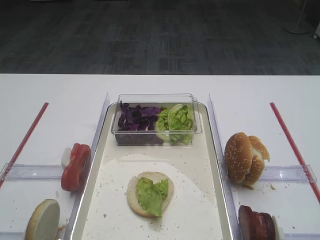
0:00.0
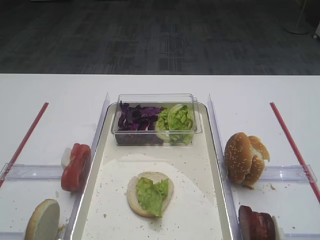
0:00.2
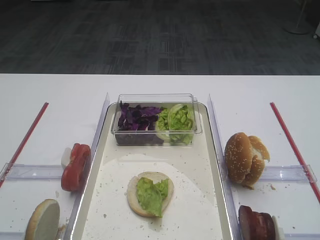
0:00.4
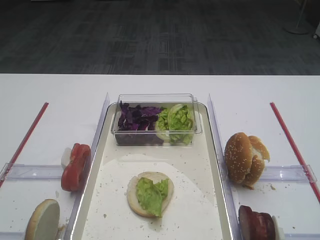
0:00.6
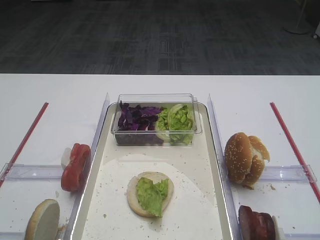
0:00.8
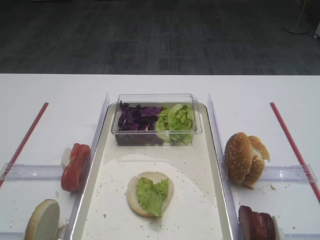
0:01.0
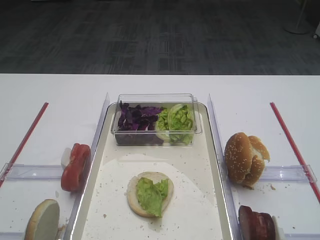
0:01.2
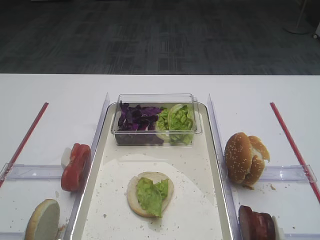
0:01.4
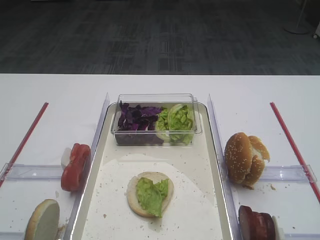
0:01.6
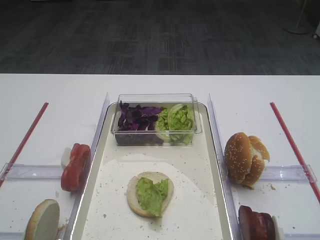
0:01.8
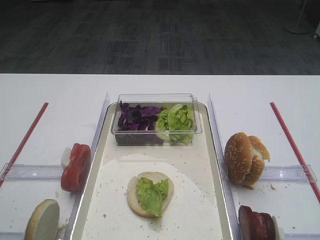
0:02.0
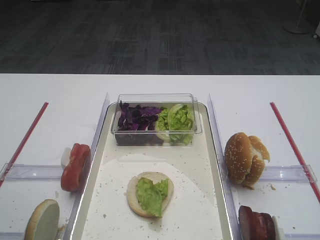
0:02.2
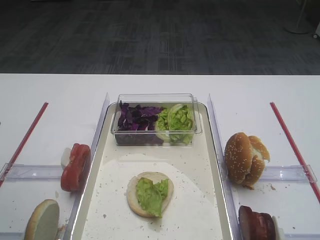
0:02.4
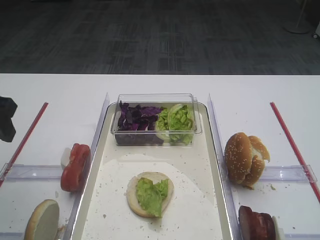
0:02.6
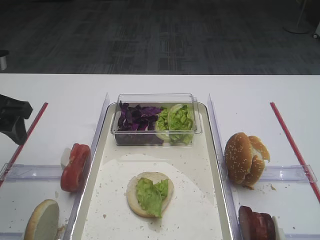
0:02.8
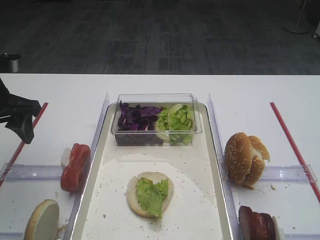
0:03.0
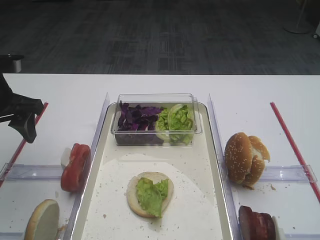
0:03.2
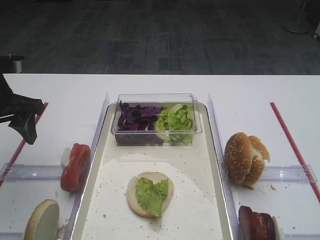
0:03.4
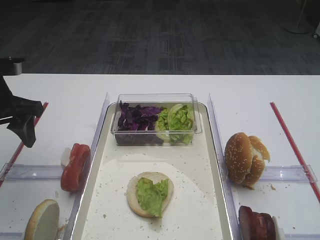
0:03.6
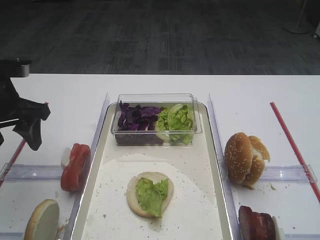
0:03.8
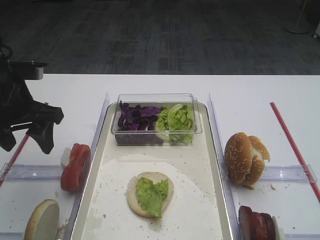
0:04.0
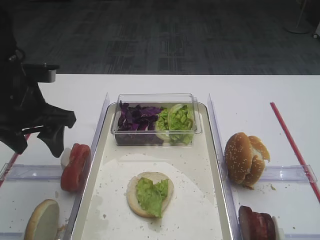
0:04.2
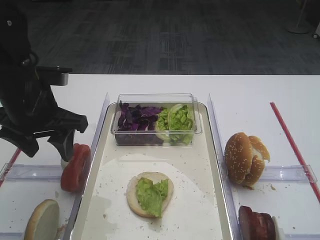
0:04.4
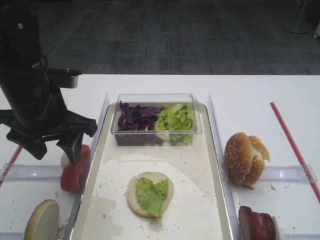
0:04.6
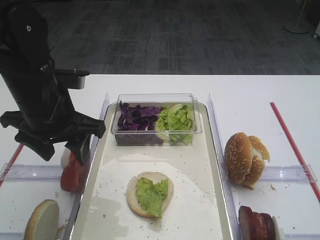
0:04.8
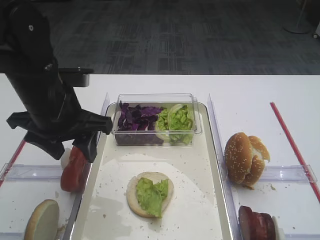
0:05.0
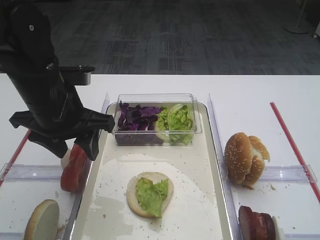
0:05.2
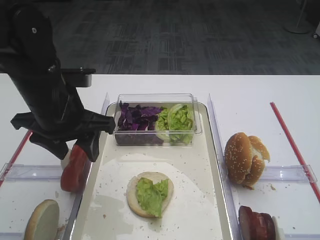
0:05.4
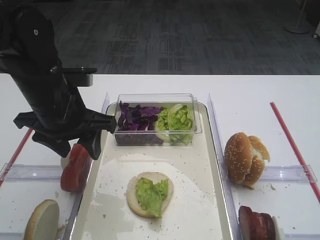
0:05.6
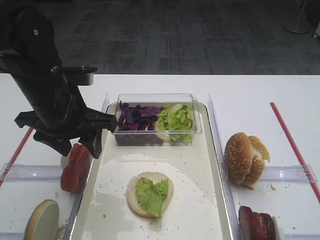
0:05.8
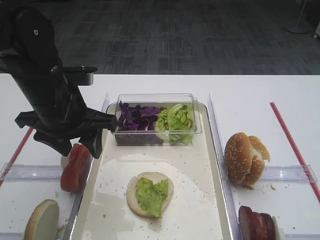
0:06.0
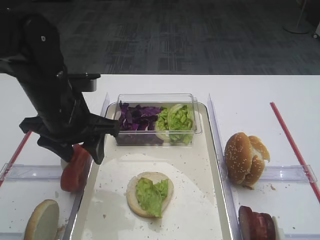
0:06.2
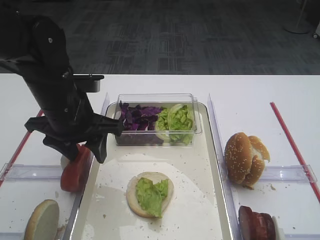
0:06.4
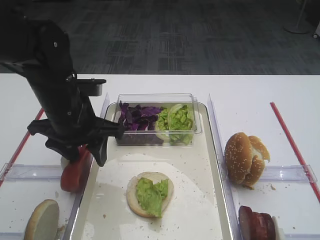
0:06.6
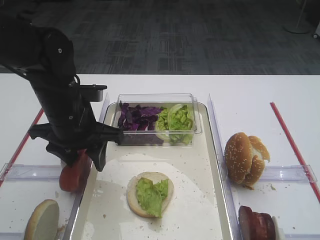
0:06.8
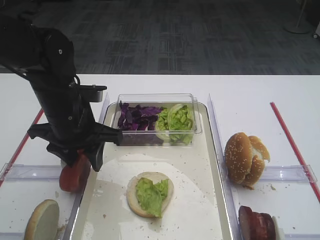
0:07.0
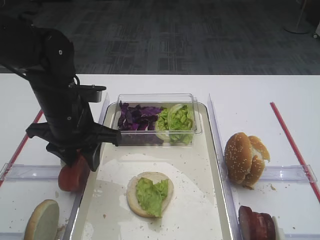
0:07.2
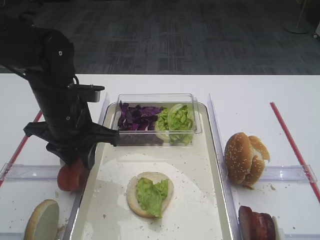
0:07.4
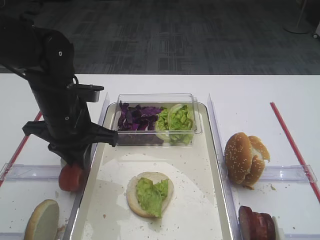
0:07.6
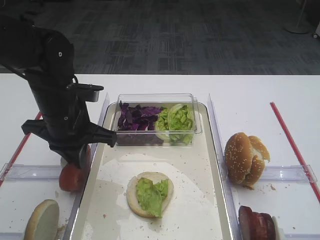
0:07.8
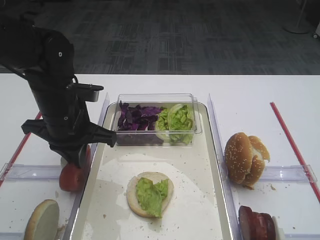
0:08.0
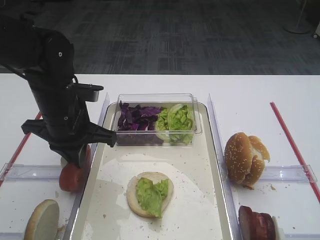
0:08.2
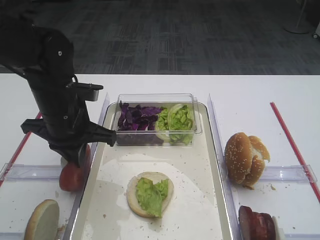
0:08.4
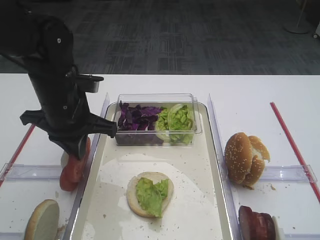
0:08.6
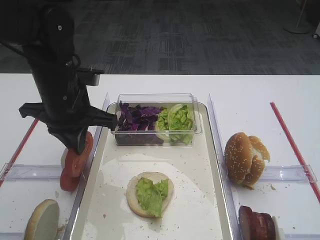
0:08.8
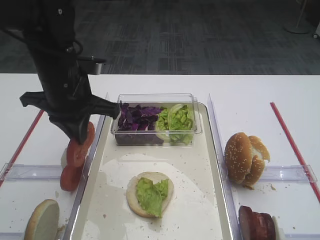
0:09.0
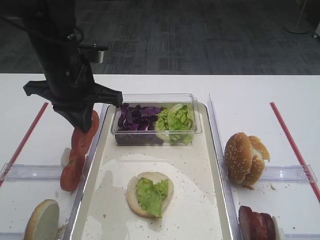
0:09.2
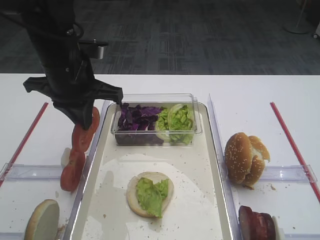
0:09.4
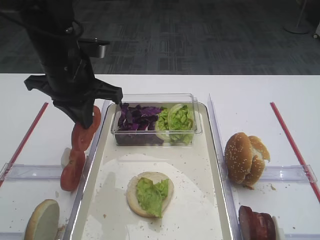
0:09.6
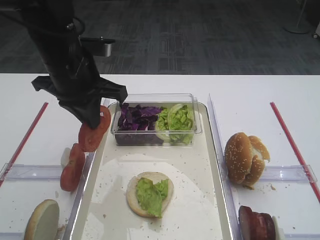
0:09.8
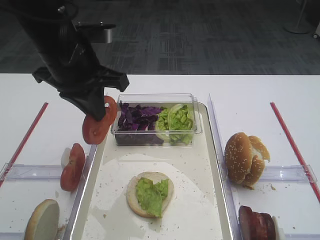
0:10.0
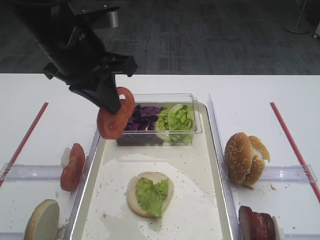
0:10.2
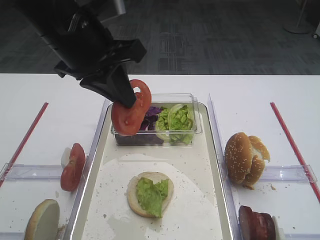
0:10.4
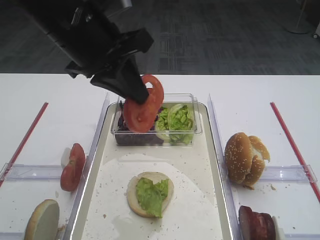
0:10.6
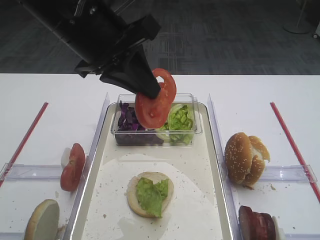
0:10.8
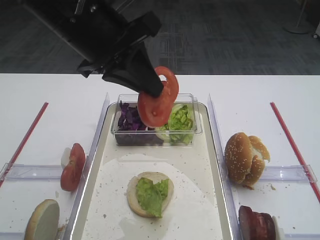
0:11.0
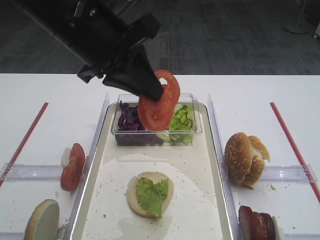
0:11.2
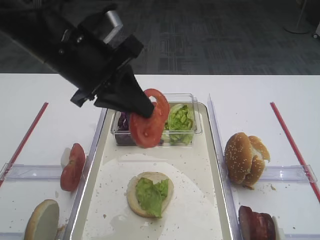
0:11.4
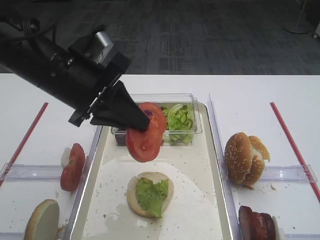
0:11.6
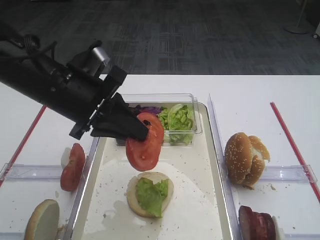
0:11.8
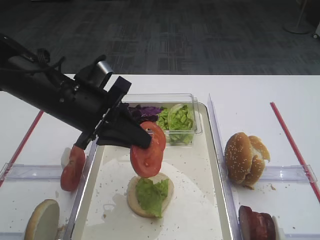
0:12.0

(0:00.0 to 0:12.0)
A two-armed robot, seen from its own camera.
Step, 0:00.0 - 0:08.6: Pick up the tomato slice with the left gripper.
0:01.6 - 0:03.0: The left gripper shifts approximately 30 cm forward.
0:03.0 - 0:04.4: The left gripper heads to the right, covering roughly 10 cm.
0:04.4 - 0:06.0: There are only small adjustments of the grippers.
0:06.0 - 0:07.6: The left gripper closes up.
0:07.6 - 0:09.0: The left gripper changes place by roughly 5 cm.
0:09.0 - 0:10.4: The left gripper heads upward, covering approximately 10 cm.
0:10.4 - 0:12.0: The left gripper goes approximately 10 cm downward.

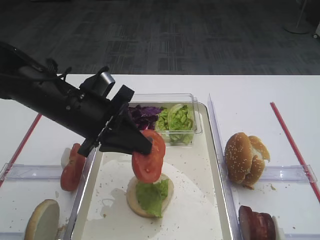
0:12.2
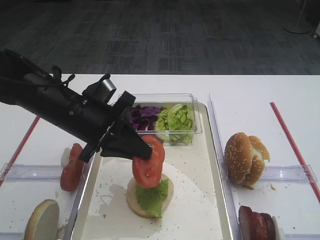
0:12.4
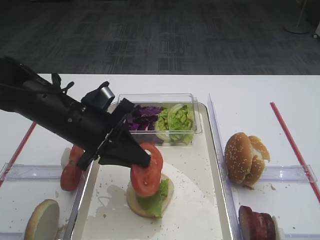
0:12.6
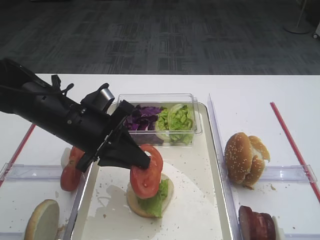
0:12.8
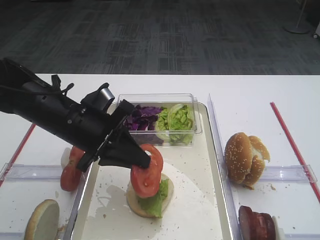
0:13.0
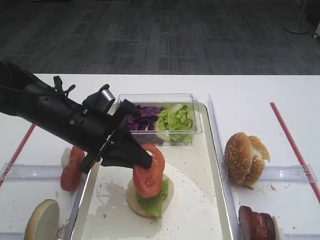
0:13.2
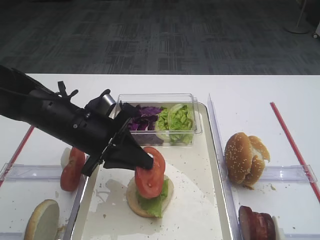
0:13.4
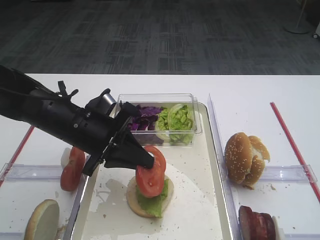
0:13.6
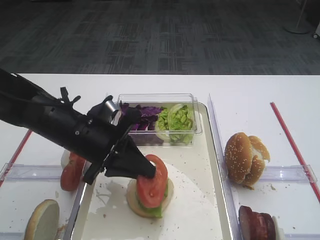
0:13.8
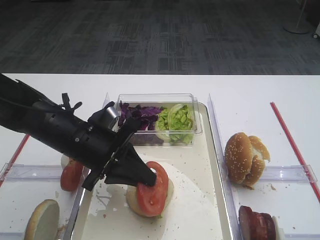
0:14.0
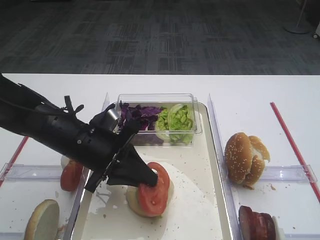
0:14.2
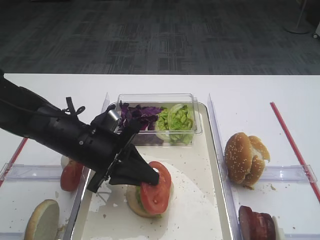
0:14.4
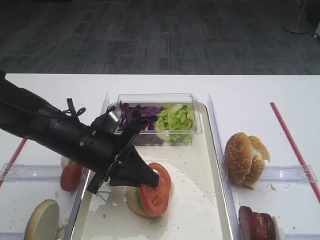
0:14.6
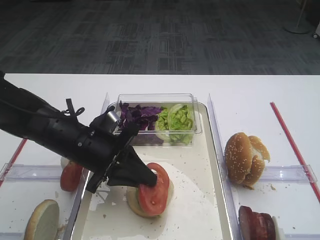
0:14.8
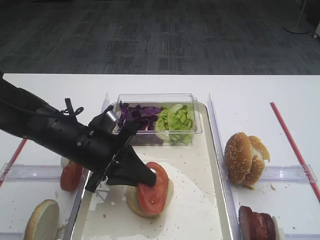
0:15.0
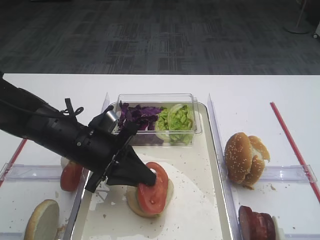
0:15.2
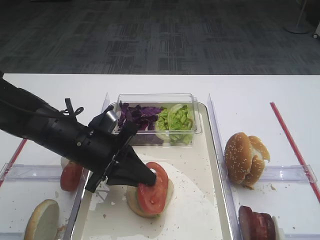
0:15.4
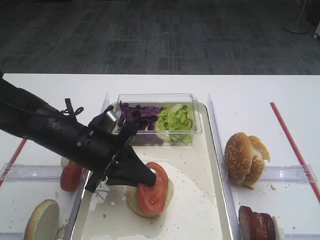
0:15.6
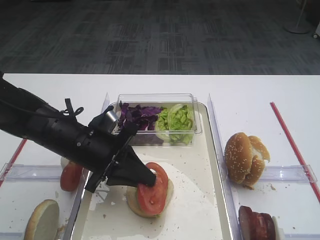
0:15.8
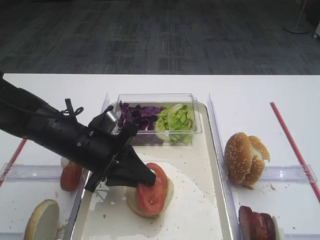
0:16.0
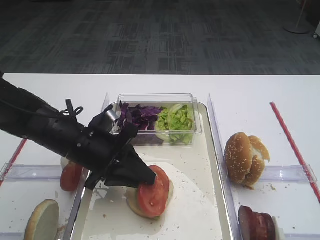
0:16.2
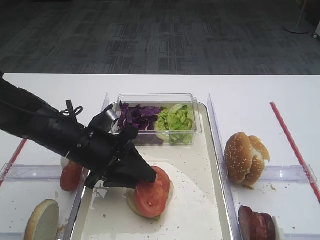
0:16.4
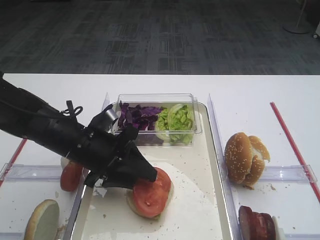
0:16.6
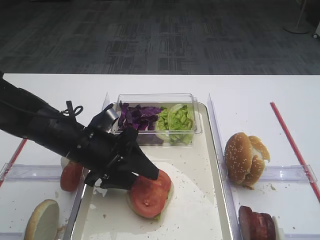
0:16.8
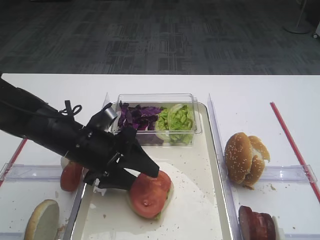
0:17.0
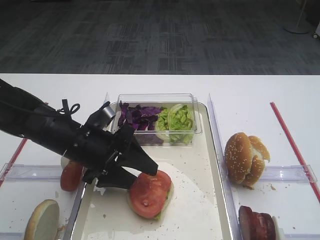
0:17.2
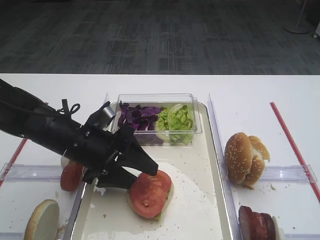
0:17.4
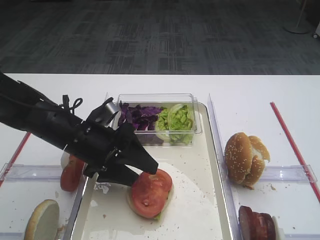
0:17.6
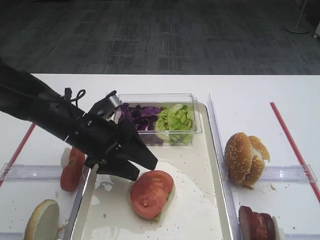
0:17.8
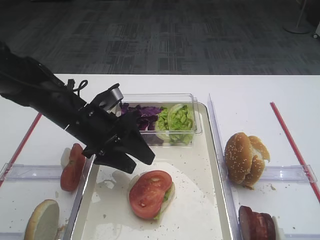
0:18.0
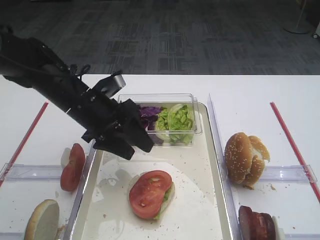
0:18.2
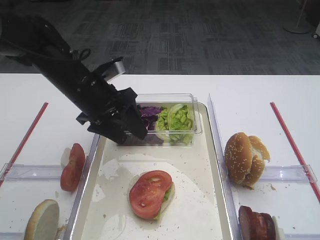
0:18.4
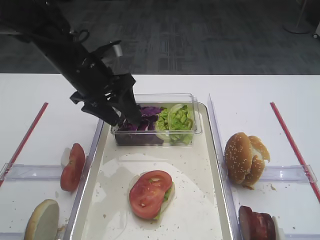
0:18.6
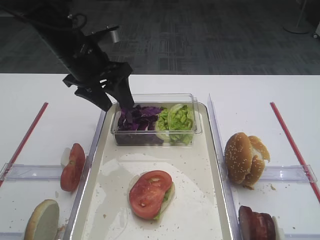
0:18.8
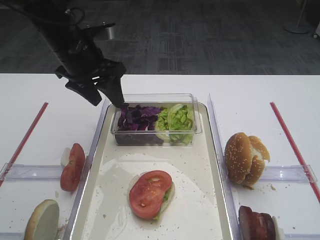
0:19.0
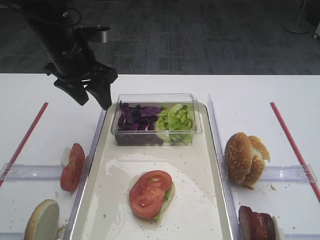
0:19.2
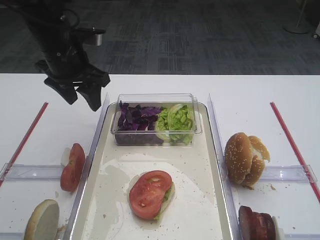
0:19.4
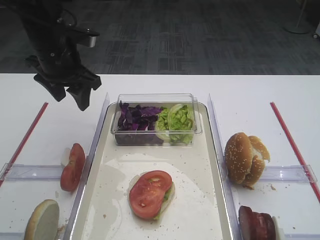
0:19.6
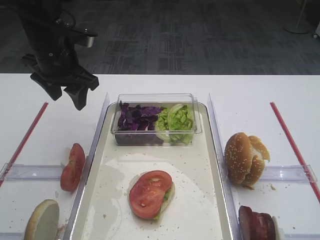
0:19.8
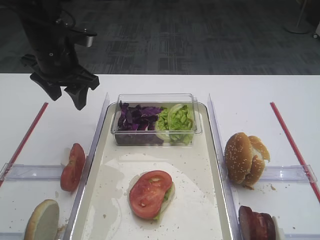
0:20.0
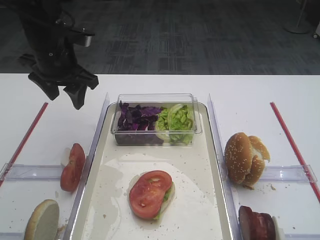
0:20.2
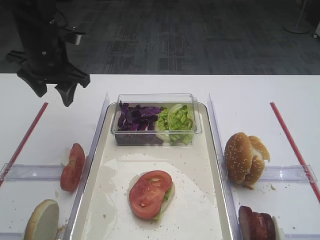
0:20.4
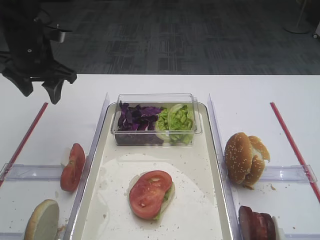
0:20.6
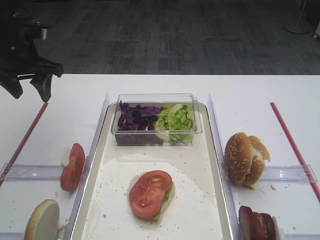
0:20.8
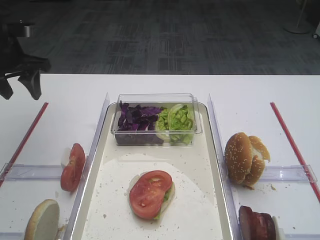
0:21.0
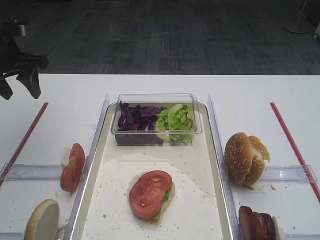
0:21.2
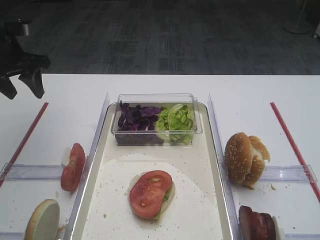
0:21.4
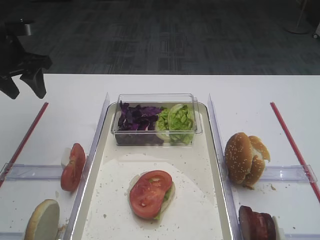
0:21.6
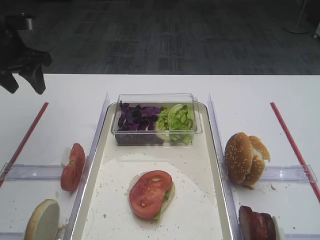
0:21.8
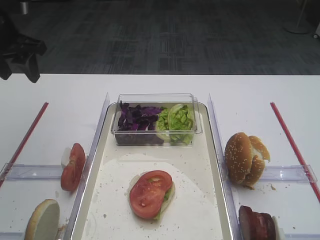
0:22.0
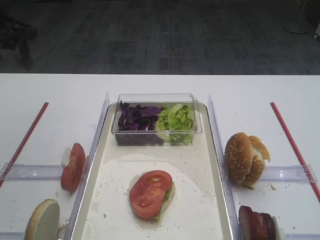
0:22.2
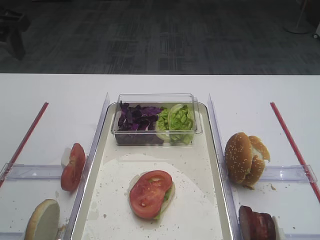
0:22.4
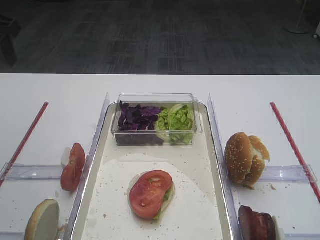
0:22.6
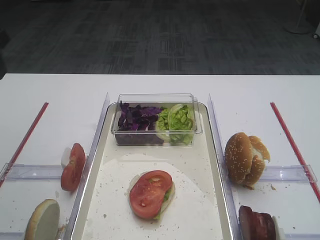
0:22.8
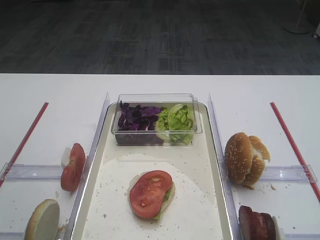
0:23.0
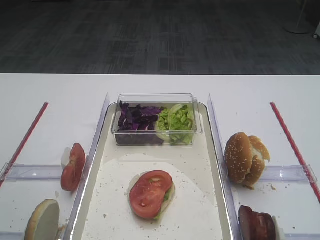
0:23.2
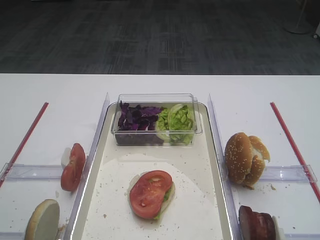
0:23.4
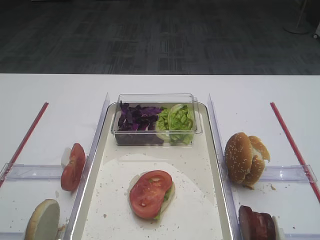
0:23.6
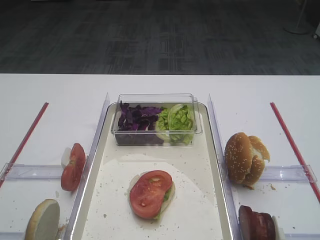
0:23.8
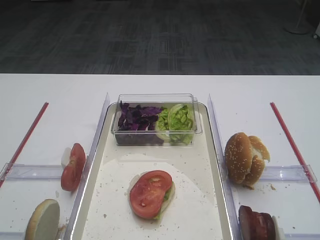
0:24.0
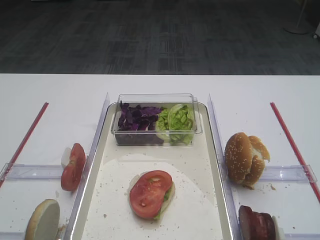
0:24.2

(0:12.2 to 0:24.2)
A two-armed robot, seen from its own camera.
Step, 0:12.2 - 0:17.6: Place the tomato slice on the lettuce leaf with the left gripper.
0:12.2 - 0:13.8: The grippers move only a little.
0:13.8 - 0:15.2: The grippers move only a little.
0:15.2 - 0:16.6: The left gripper opens its fingers.
0:16.6 - 0:18.2: The left gripper changes place by about 5 cm.
0:18.2 - 0:19.8: The left gripper heads upward, forward and to the left, covering approximately 10 cm.
0:19.8 - 0:21.2: The left gripper is displaced to the left by some 10 cm.
0:21.2 - 0:22.6: The left gripper travels upward and backward by approximately 10 cm.
